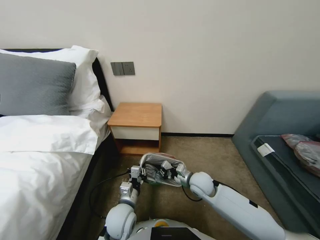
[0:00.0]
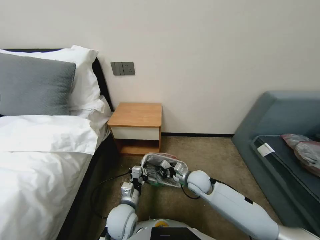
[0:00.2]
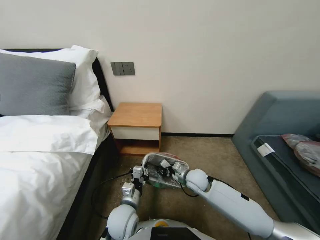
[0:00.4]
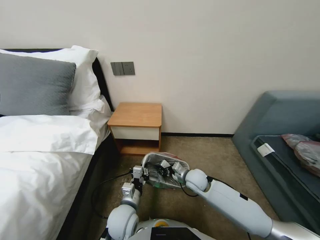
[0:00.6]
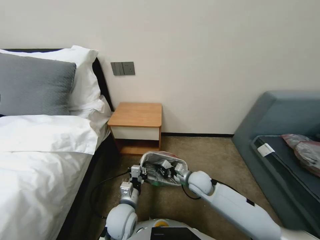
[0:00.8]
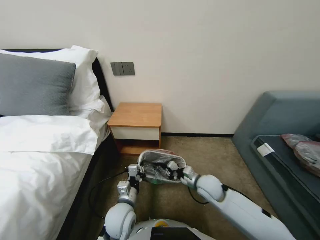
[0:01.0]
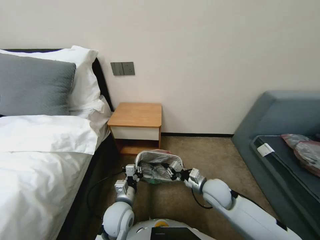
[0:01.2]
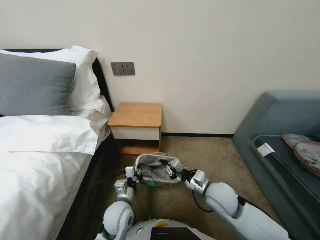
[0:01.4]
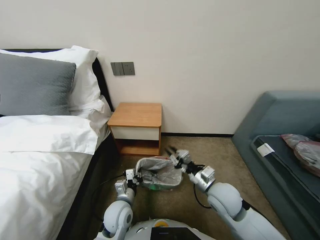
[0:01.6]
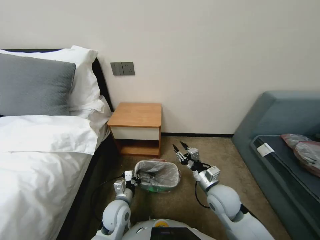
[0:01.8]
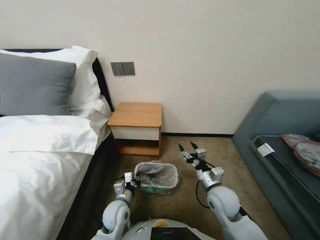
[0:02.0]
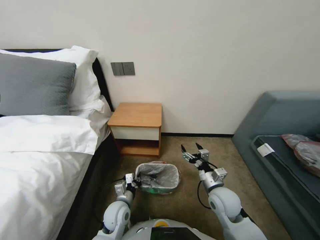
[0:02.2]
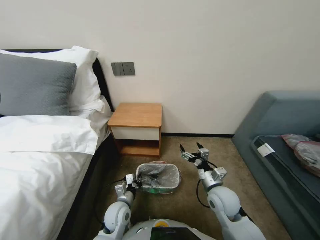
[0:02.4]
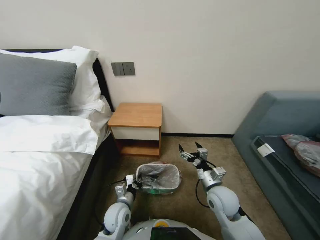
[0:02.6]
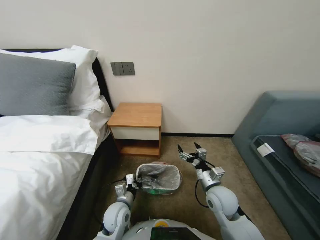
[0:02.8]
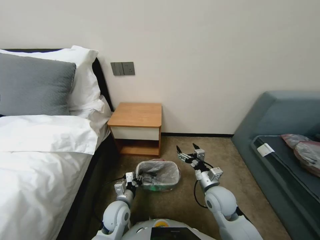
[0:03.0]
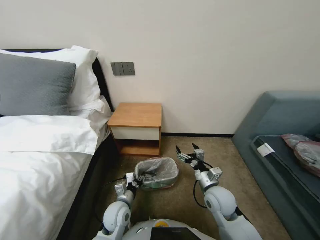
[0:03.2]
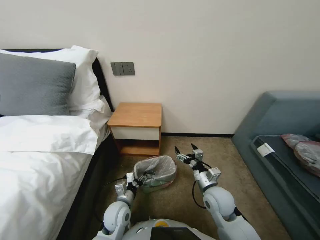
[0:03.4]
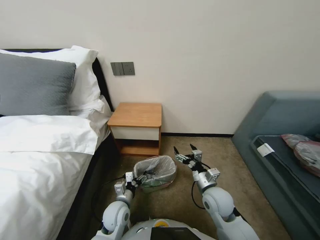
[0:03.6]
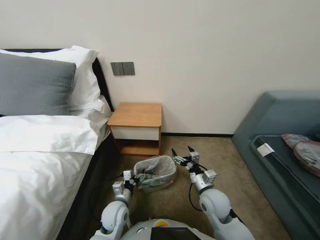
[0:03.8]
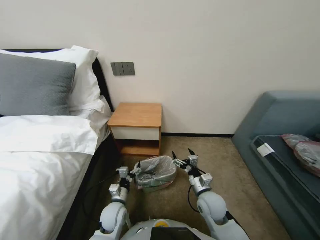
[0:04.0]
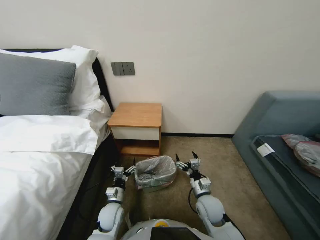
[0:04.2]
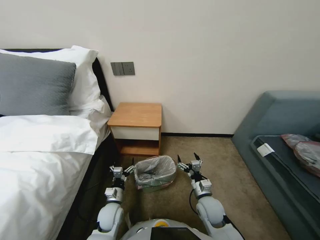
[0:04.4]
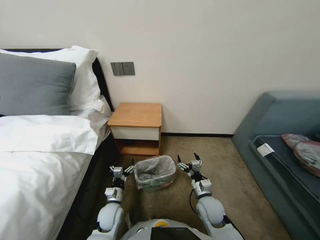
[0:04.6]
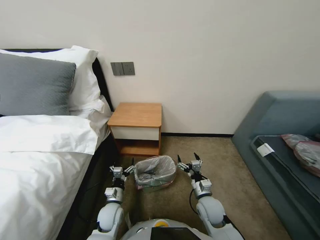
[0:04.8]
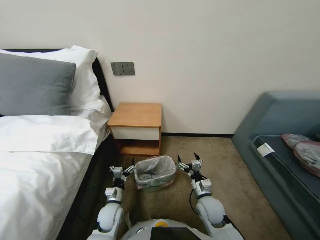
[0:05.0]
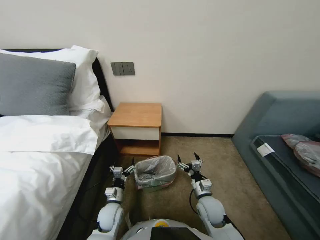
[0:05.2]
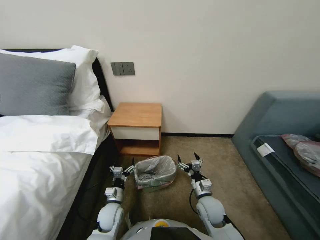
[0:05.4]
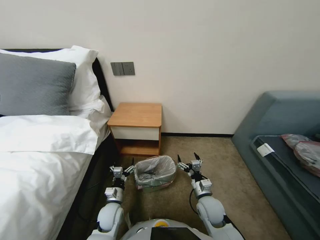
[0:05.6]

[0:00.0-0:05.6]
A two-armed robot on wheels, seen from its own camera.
Task of the whole recording: Pick up the garbage bag from the table and place it over the trash can.
0:00.0 to 0:01.4: The right gripper shifts by approximately 5 cm.
0:01.4 to 0:02.8: The left gripper goes roughly 5 cm downward, while the right gripper opens.
0:02.8 to 0:04.2: The right gripper shifts some 5 cm downward. Meanwhile the left gripper opens up.
0:04.2 to 0:05.6: The grippers stay close to where they were, moving slightly.
